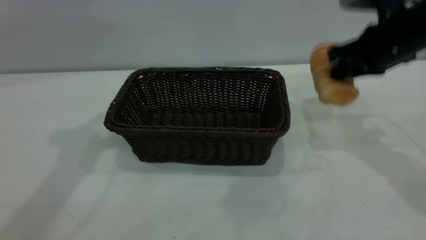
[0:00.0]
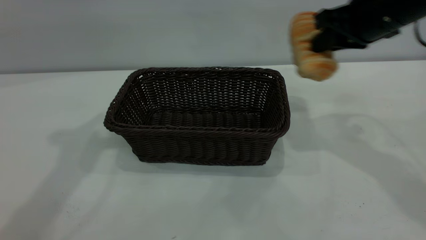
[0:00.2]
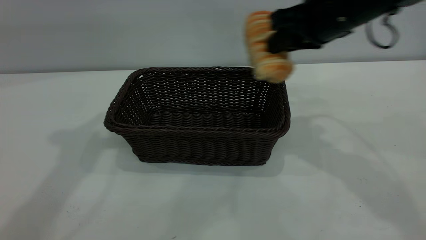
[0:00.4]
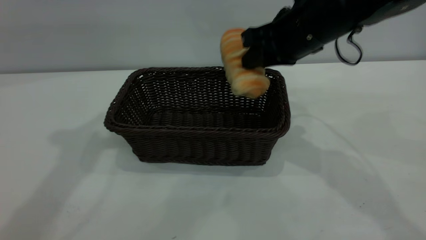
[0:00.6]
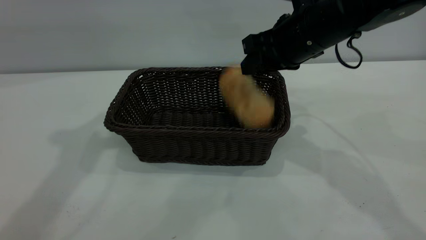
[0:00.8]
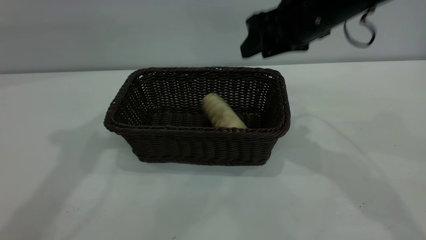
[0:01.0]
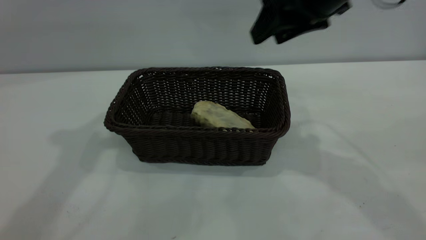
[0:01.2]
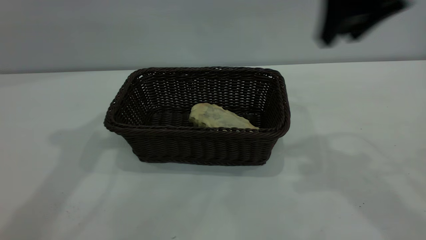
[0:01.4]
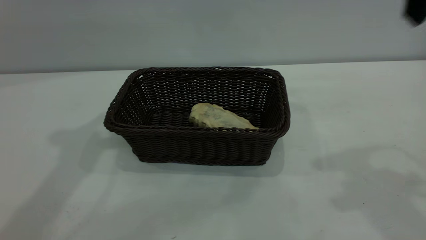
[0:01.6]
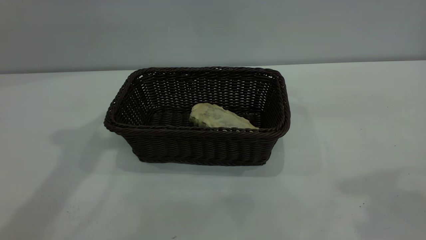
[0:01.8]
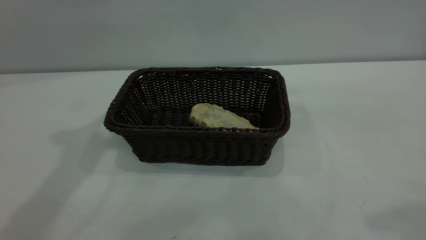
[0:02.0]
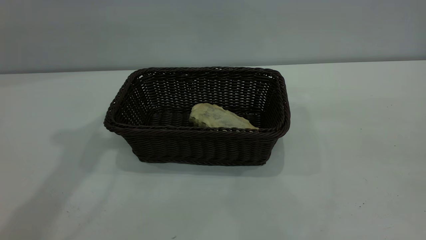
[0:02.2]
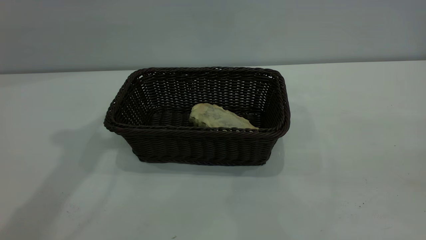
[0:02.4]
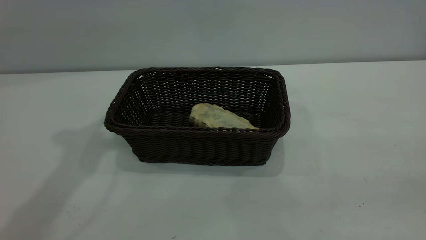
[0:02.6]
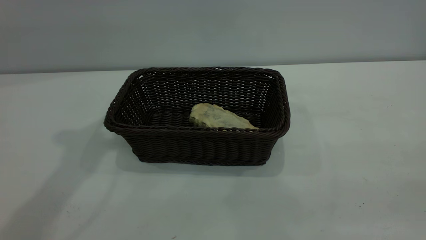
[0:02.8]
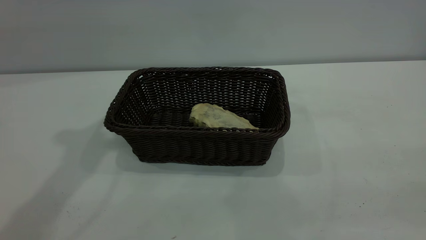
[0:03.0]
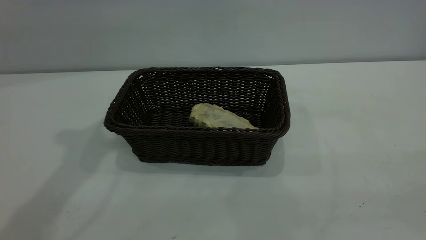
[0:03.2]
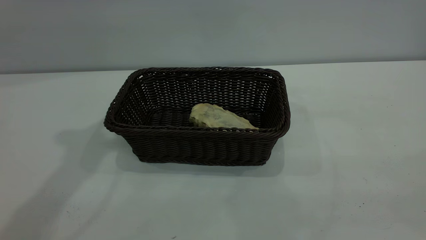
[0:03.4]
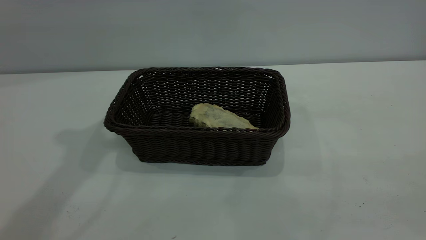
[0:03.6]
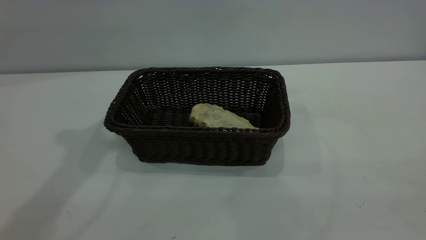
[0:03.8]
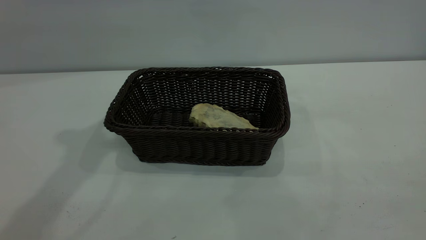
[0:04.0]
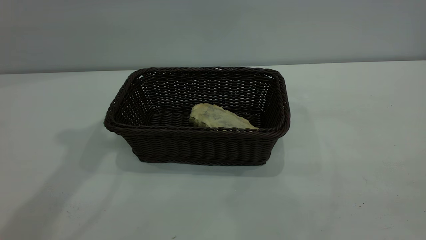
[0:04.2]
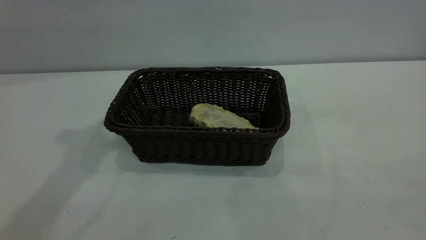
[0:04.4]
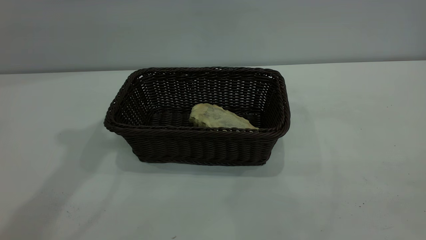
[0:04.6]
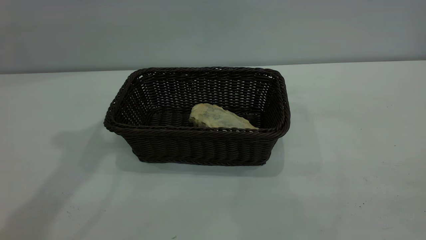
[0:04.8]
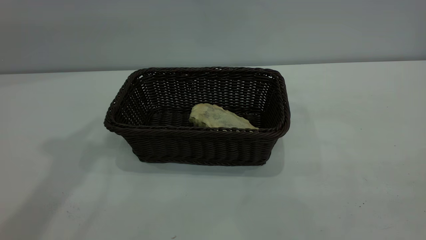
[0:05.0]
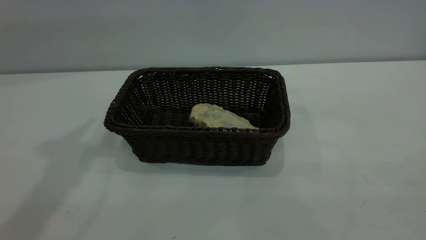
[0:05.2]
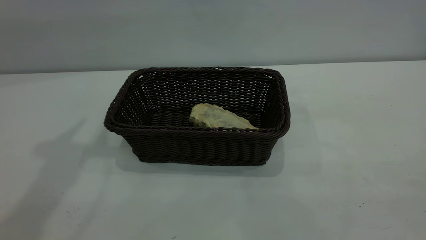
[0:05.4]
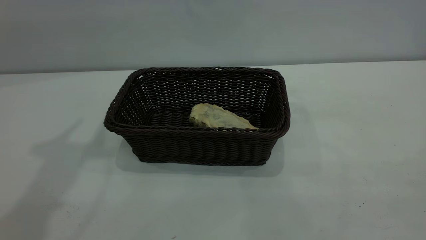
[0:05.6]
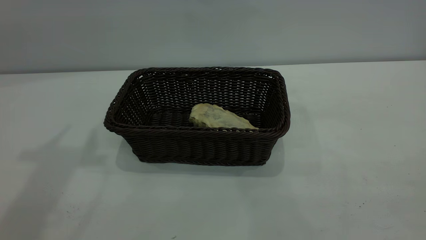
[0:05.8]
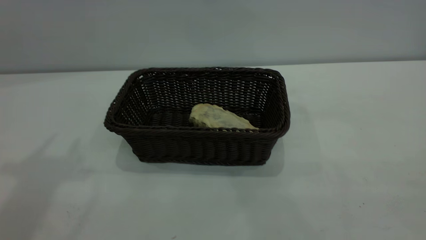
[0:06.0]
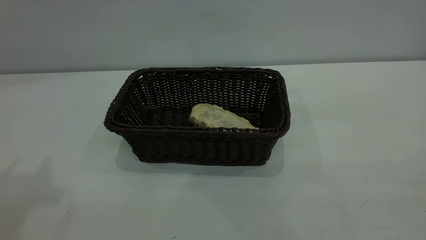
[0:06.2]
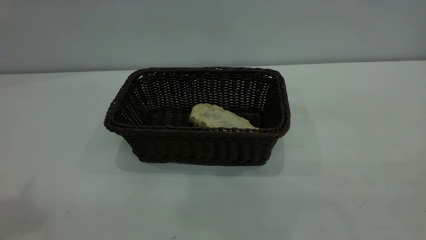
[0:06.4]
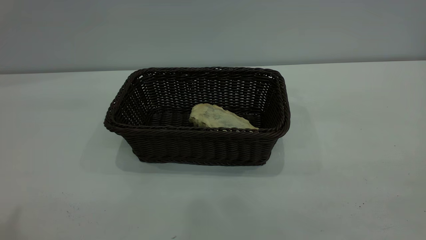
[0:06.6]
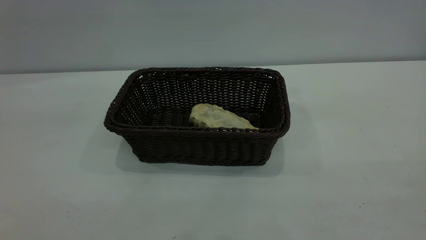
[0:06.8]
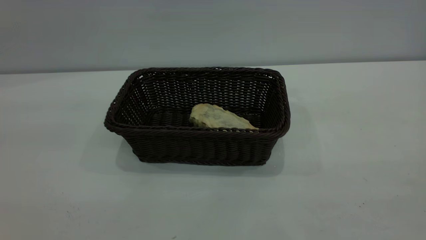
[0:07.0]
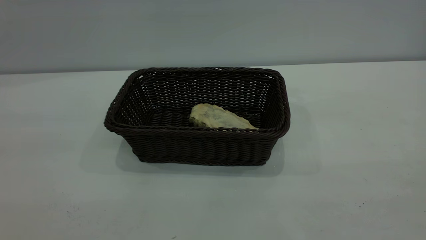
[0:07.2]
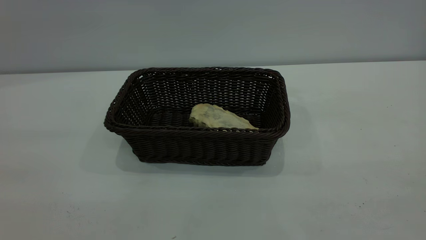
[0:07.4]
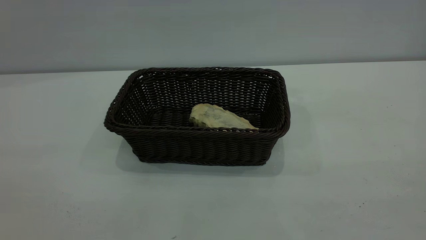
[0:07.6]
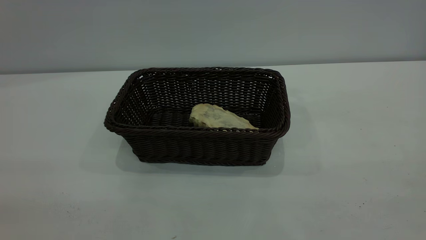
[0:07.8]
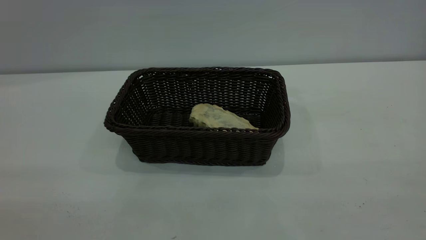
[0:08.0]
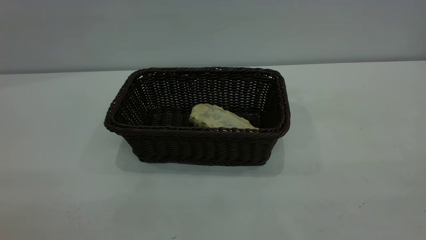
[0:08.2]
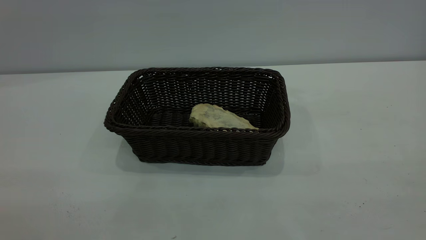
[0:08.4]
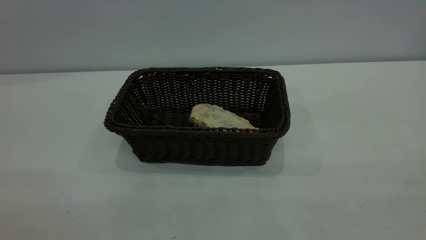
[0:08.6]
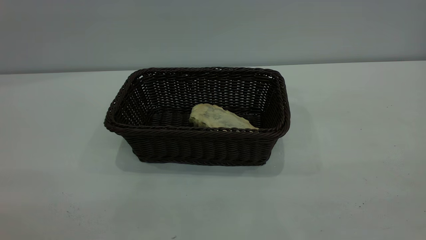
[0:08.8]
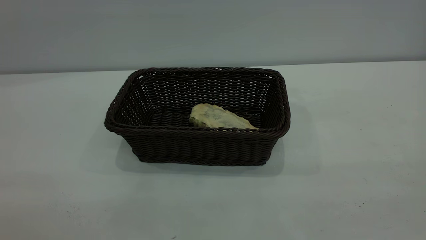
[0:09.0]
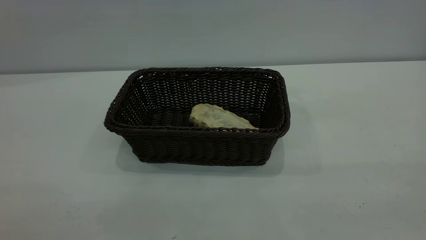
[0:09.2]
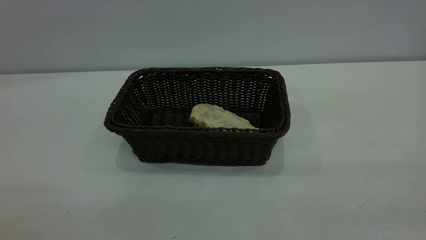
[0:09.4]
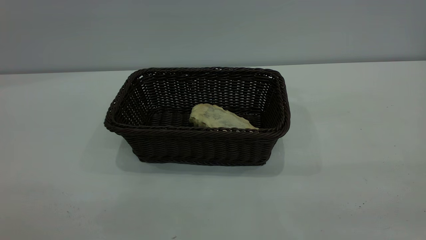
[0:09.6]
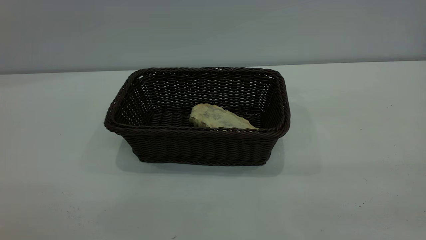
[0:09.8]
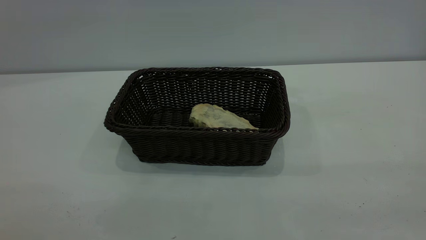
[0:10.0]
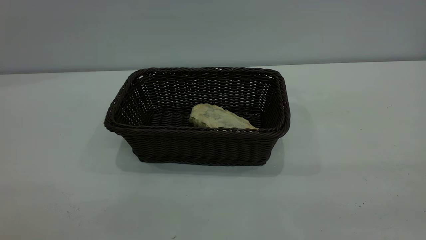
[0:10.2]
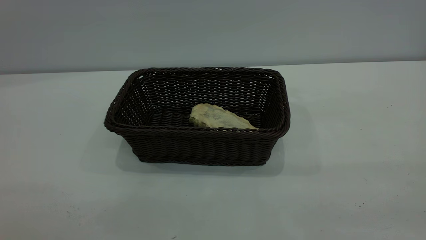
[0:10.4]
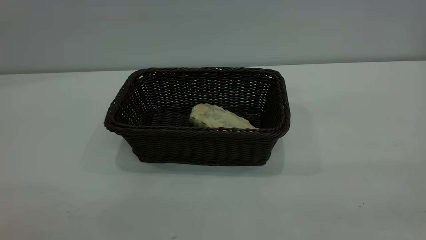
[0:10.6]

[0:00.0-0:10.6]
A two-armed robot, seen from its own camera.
Task of the whole recording: One hand grasps the black basket and places it in the middle of the table, while the other hand picks up the long bread and puts it into the black basket.
Step, 0:00.2 to 0:01.2: place the bread into the basket.
0:00.0 to 0:01.6: The right gripper travels upward and backward by approximately 20 cm, and opens its fingers.
